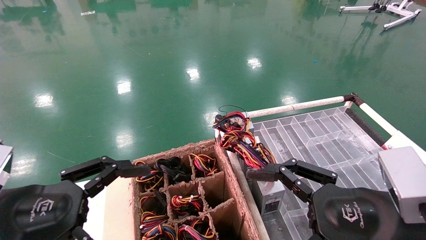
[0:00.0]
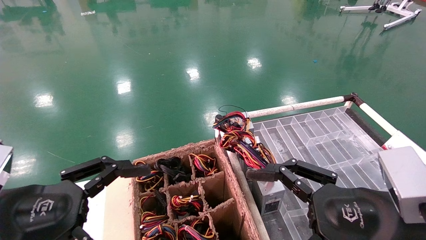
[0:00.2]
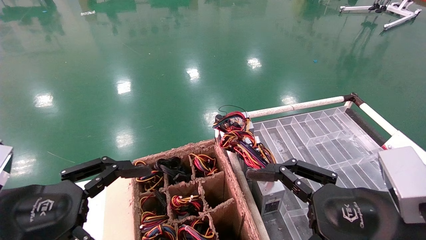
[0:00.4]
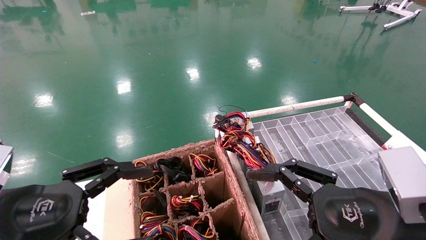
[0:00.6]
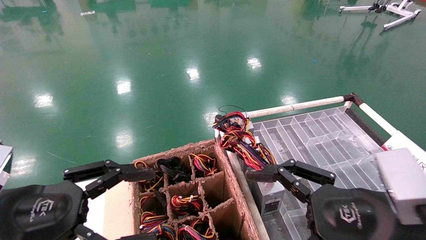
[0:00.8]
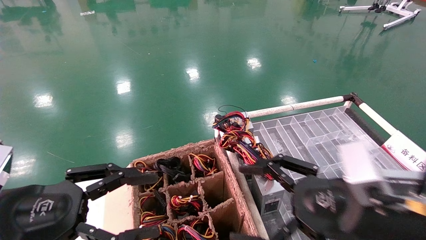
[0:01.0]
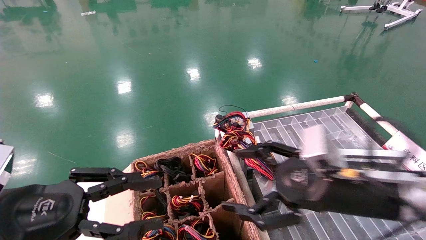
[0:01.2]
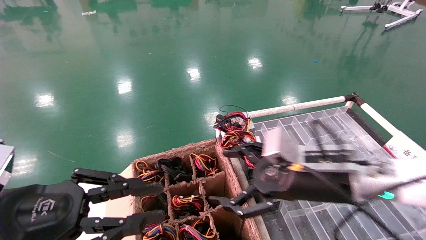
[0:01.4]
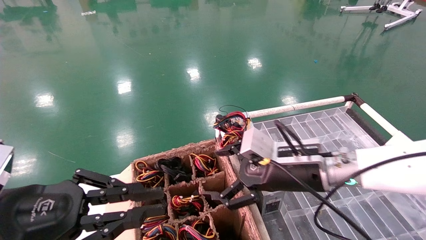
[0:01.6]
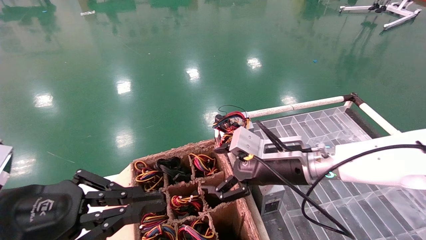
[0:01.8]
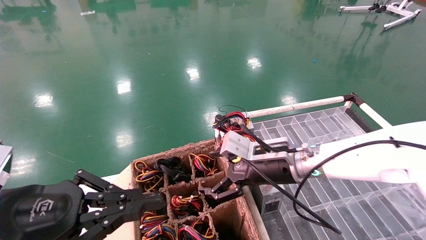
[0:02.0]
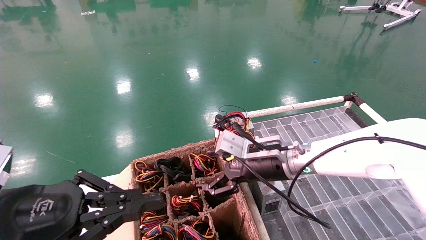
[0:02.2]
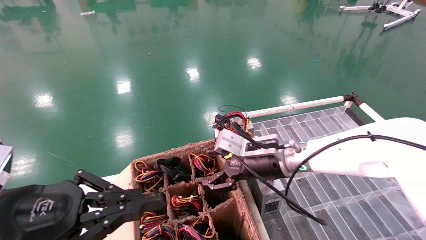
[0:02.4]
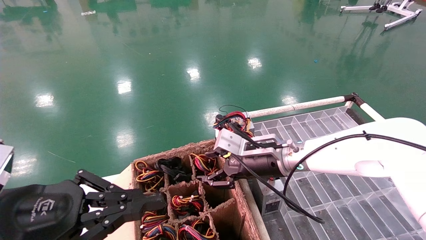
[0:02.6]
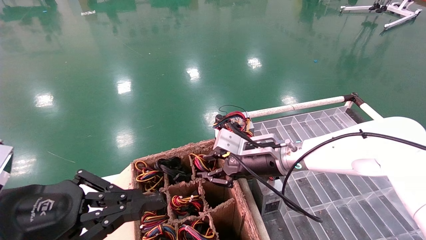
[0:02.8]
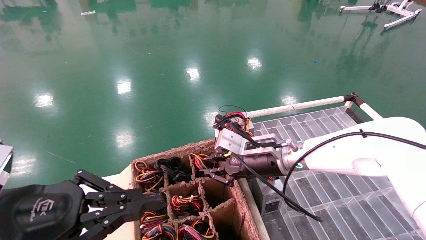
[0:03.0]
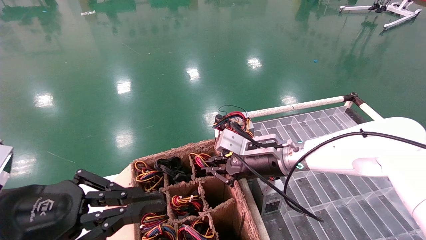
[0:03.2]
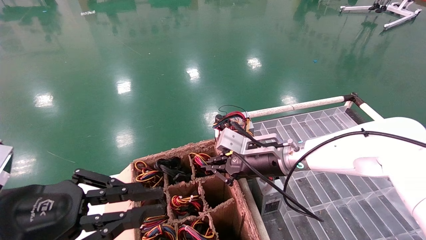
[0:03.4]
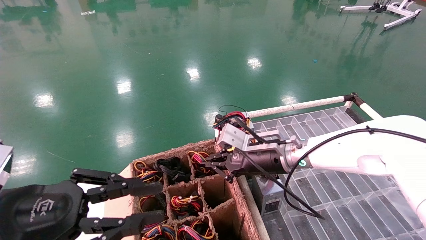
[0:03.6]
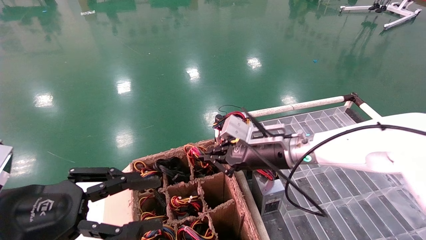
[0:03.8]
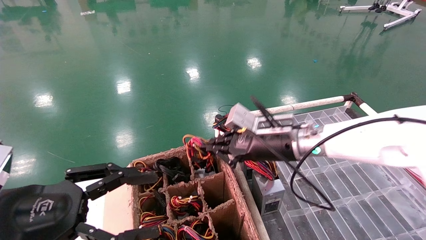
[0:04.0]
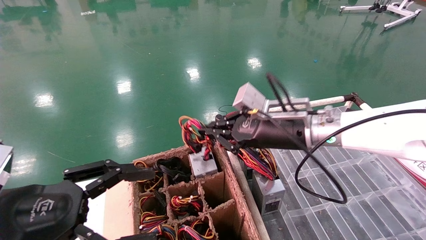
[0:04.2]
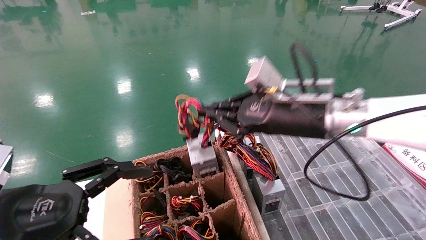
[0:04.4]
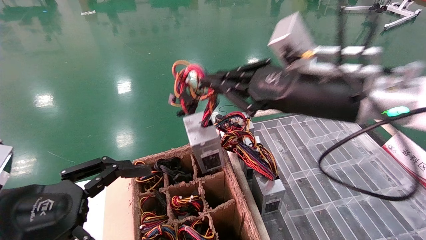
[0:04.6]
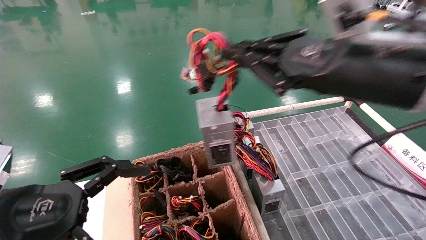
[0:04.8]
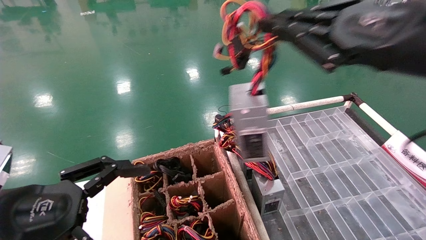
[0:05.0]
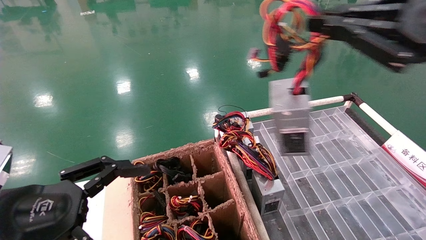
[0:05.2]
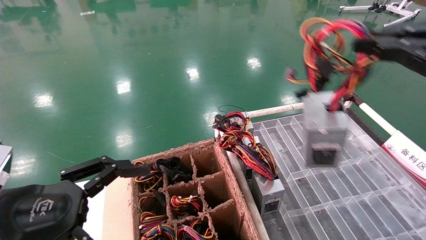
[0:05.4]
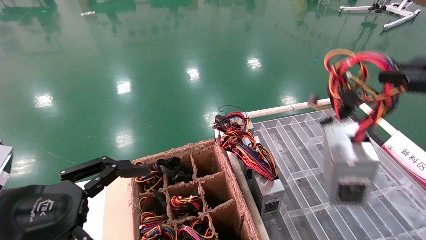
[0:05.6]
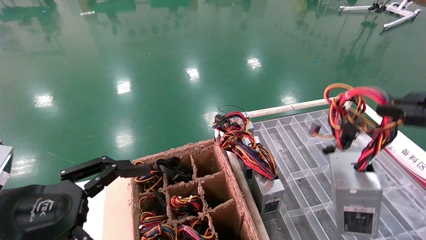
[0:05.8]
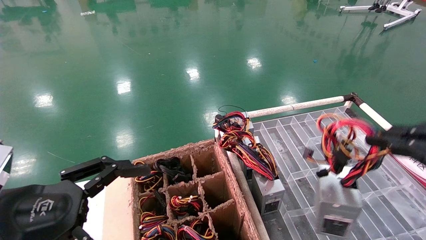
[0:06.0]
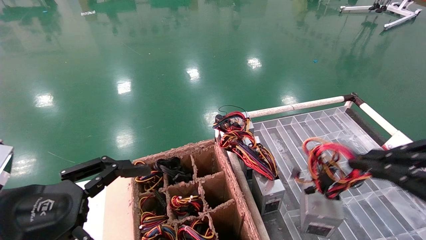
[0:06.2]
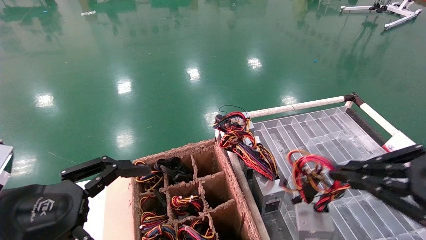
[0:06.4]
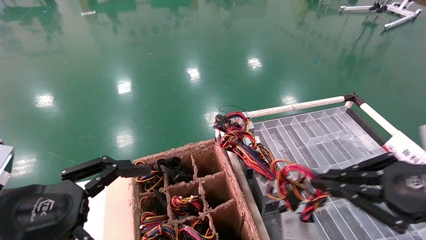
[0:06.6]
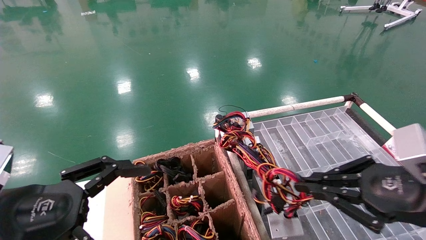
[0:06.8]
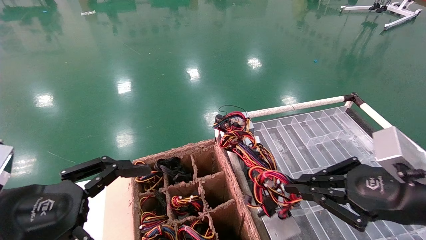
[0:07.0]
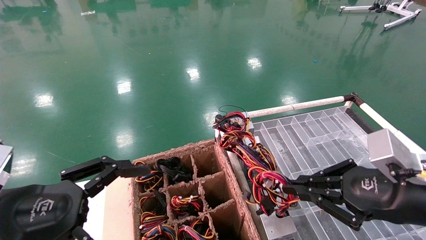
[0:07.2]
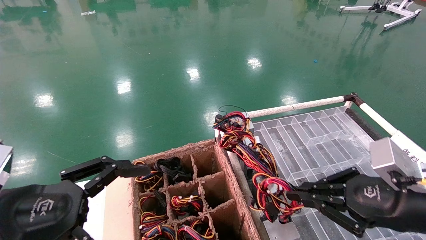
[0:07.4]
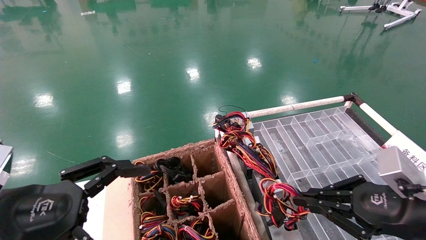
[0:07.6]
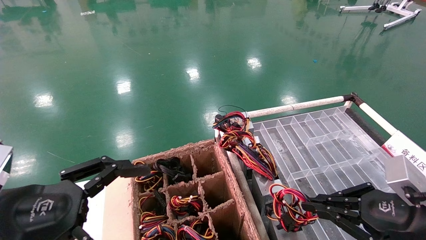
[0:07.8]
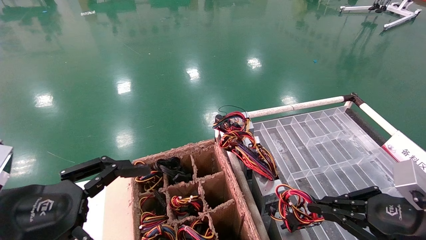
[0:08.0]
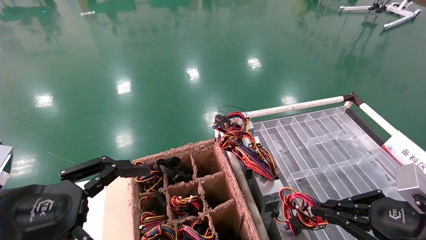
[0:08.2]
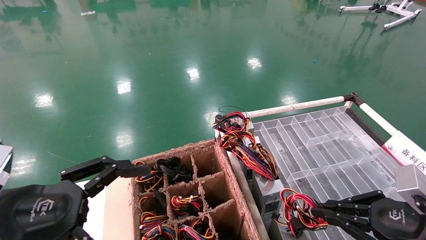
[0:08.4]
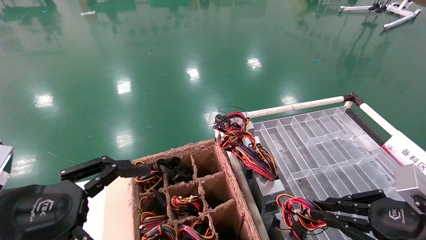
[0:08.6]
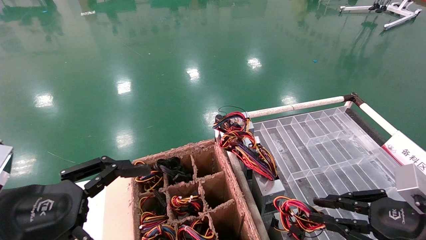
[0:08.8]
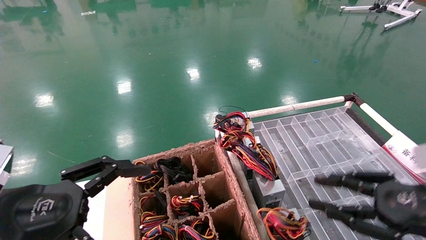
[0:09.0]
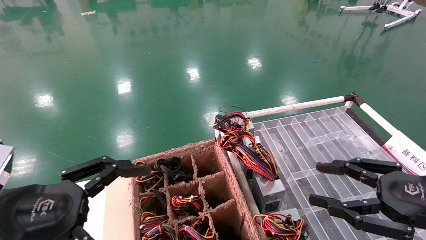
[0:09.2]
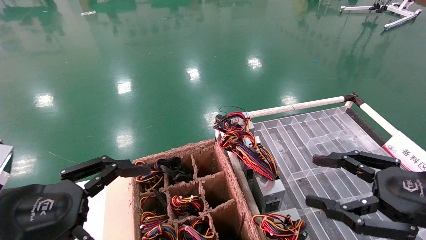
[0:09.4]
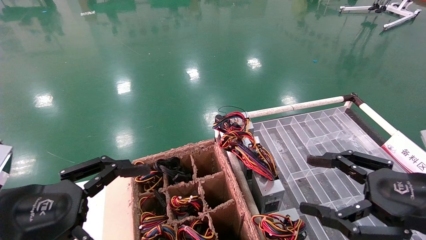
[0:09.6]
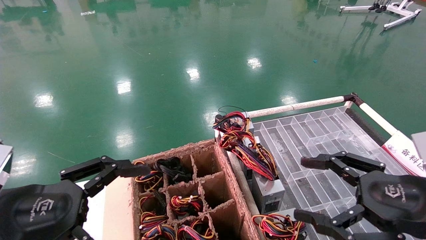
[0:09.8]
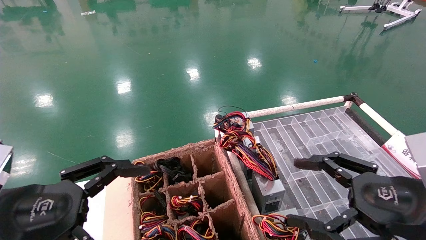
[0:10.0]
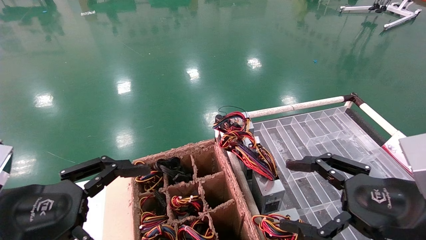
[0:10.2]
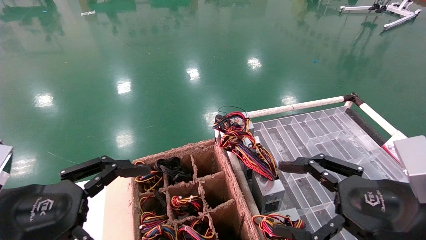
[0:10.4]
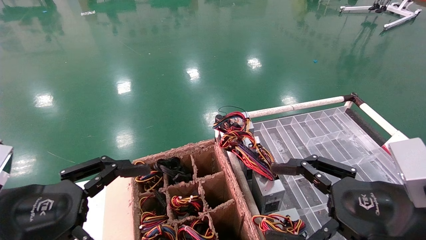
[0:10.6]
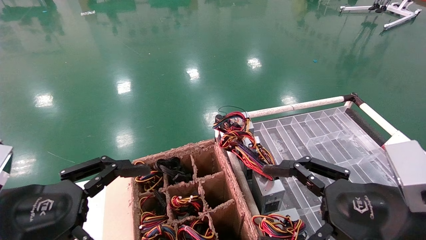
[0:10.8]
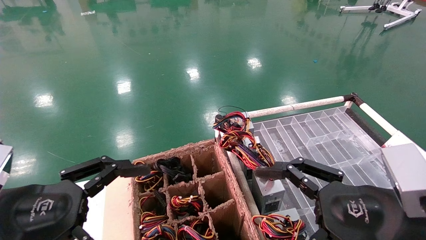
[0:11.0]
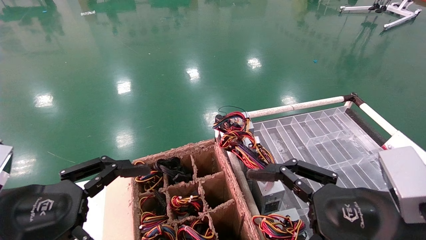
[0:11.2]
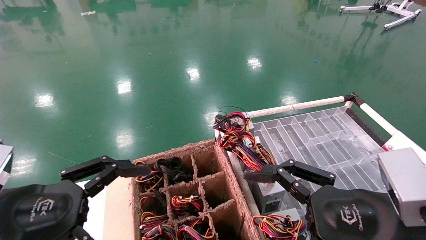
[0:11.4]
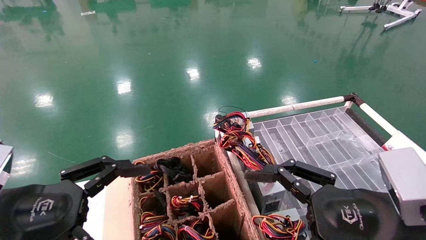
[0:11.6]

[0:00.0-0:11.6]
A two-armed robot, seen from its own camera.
Step, 0:00.8 to 0:03.4: Grab and lift the power supply from the large box.
Step, 0:03.6 to 0:08.6: Place the power supply on the operating table.
0:00.0 to 0:01.4: The right gripper travels forward and to the left by roughly 15 cm; the left gripper closes.
0:01.4 to 0:02.8: The left gripper closes, while the right gripper moves forward and to the left, approximately 15 cm, and closes up.
0:02.8 to 0:04.4: The left gripper opens up; the right gripper heads upward and backward, covering about 15 cm, and closes up.
0:04.4 to 0:05.8: The right gripper moves backward and to the right, some 30 cm.
0:05.8 to 0:07.2: The right gripper is displaced downward, forward and to the left by some 15 cm.
0:07.2 to 0:08.8: The right gripper shifts by approximately 5 cm.
0:08.8 to 0:10.2: The right gripper heads to the left, covering roughly 5 cm, and opens its fingers.
0:10.2 to 0:11.6: The right gripper travels to the left by some 5 cm.
